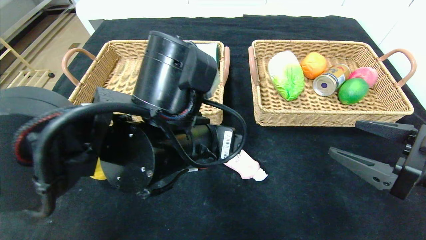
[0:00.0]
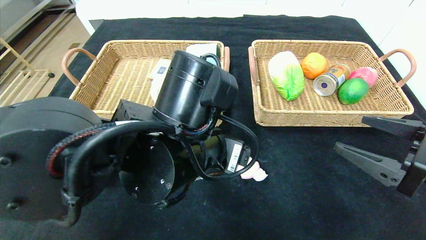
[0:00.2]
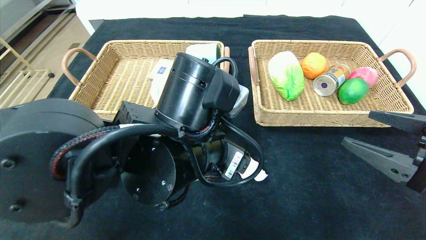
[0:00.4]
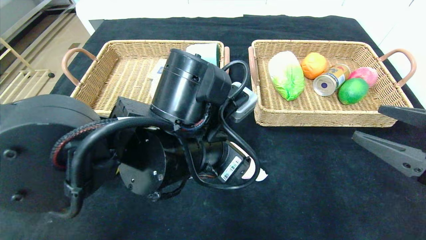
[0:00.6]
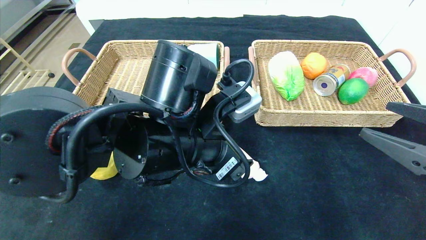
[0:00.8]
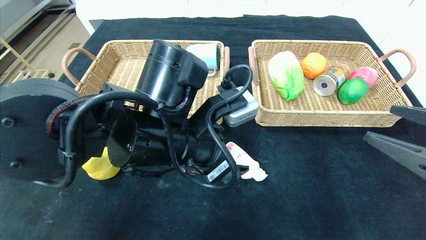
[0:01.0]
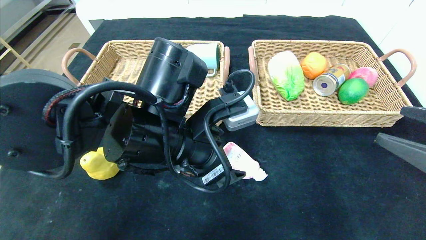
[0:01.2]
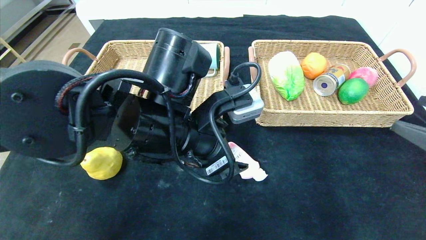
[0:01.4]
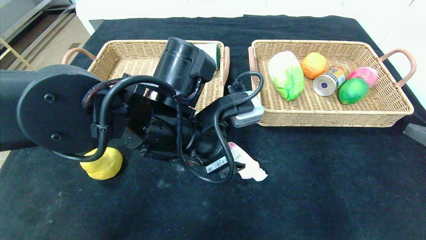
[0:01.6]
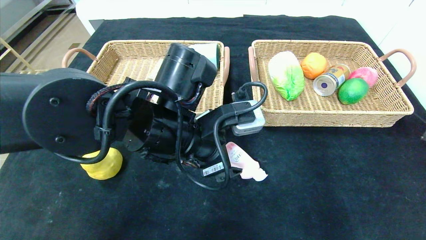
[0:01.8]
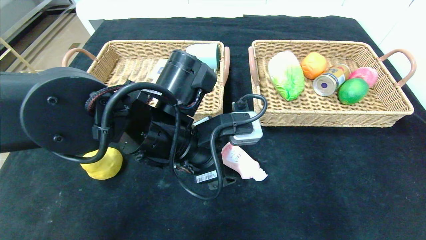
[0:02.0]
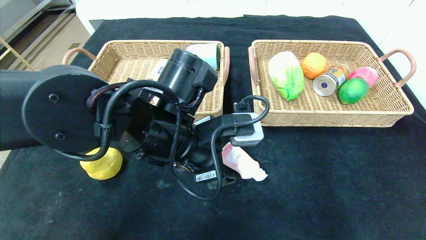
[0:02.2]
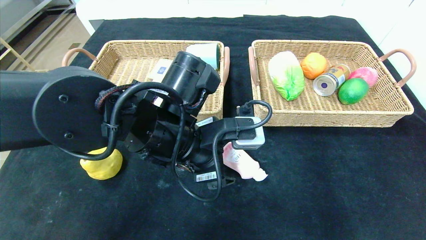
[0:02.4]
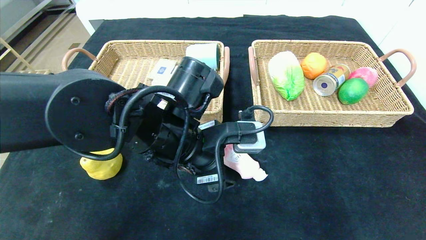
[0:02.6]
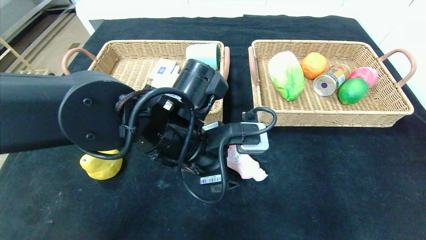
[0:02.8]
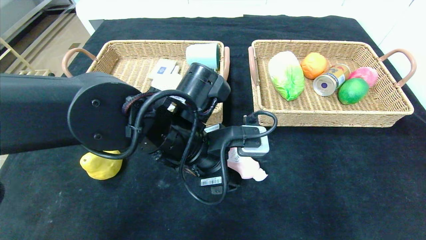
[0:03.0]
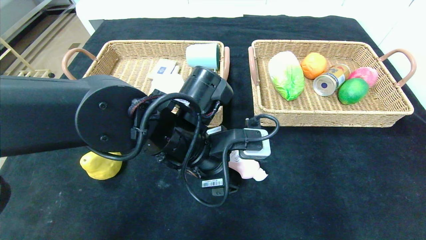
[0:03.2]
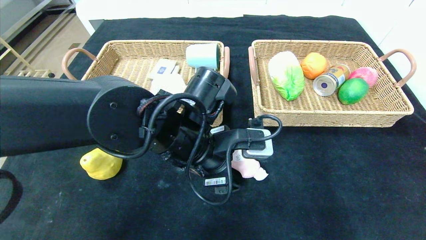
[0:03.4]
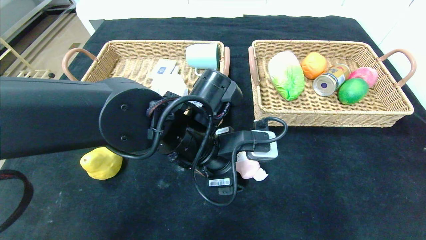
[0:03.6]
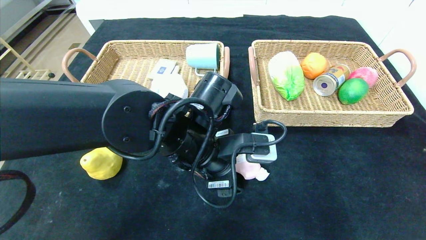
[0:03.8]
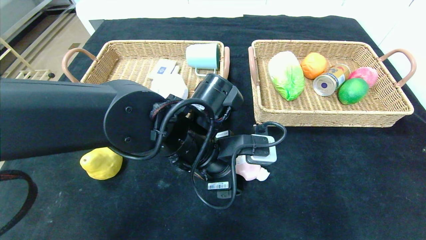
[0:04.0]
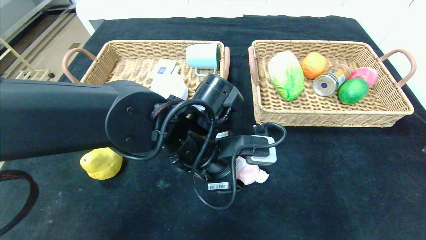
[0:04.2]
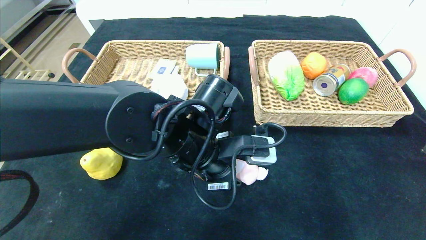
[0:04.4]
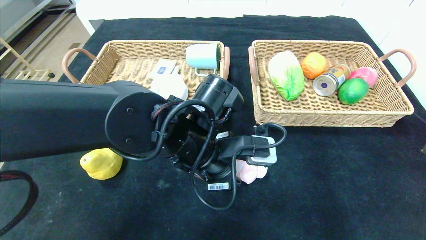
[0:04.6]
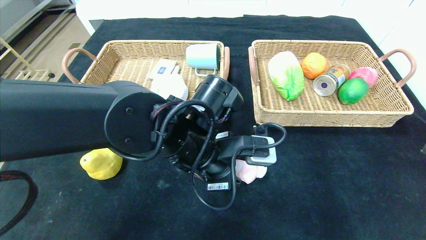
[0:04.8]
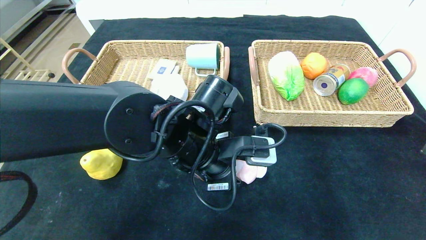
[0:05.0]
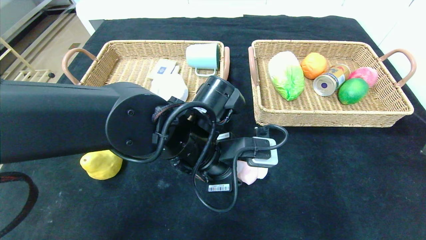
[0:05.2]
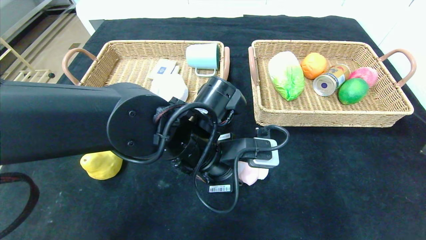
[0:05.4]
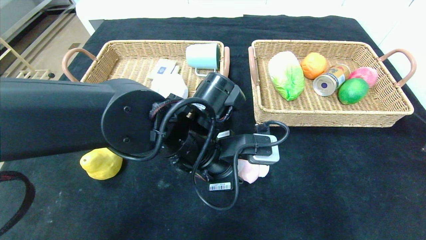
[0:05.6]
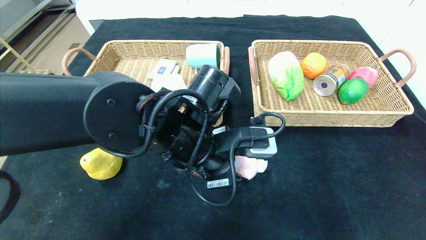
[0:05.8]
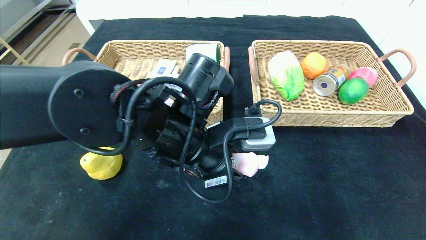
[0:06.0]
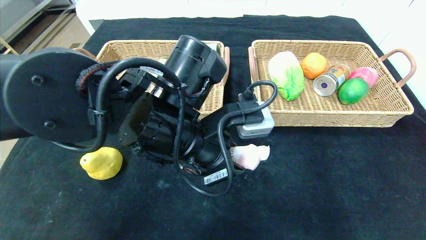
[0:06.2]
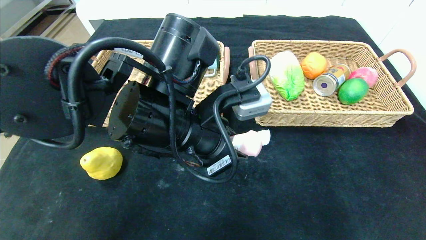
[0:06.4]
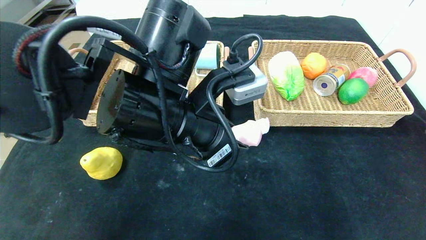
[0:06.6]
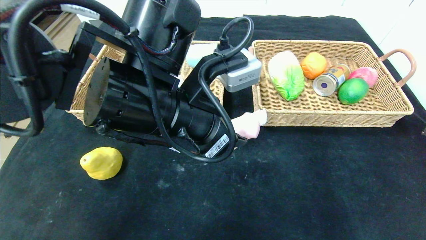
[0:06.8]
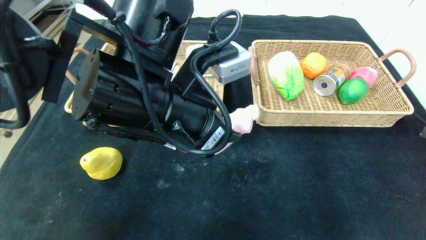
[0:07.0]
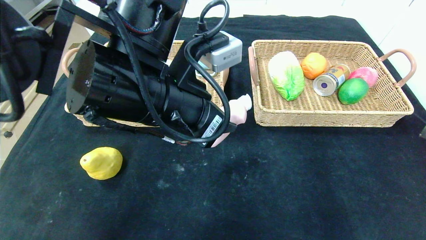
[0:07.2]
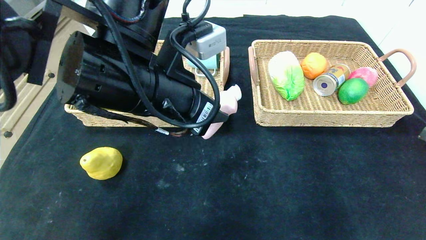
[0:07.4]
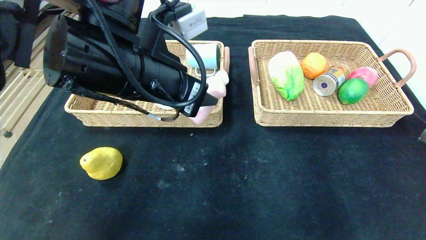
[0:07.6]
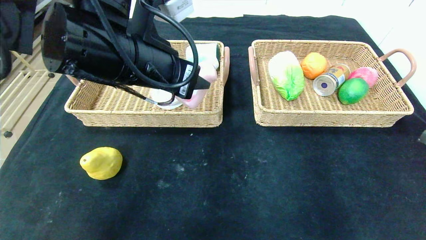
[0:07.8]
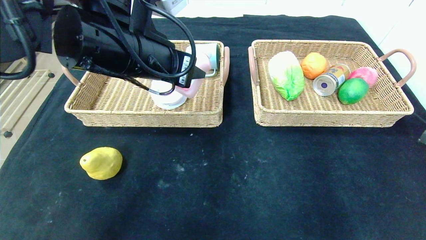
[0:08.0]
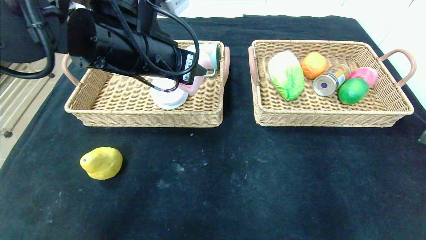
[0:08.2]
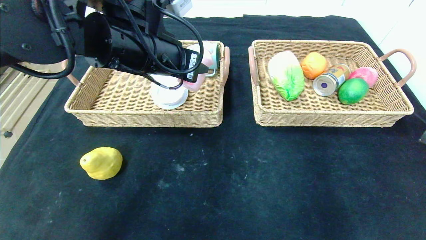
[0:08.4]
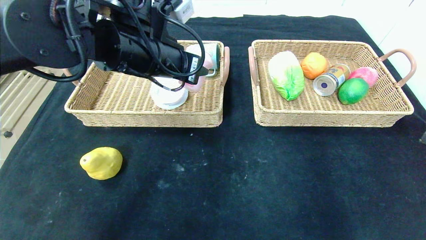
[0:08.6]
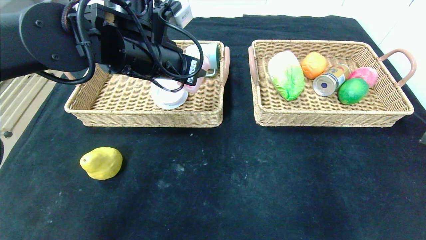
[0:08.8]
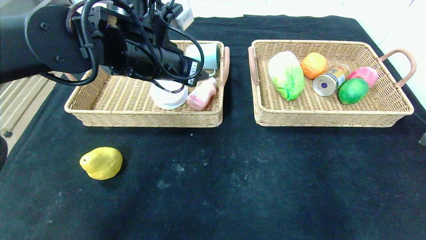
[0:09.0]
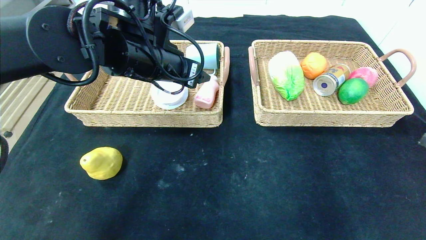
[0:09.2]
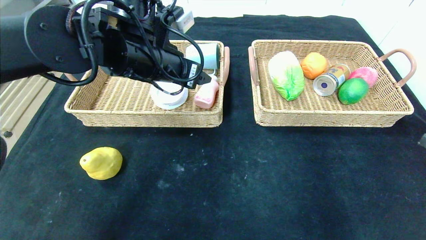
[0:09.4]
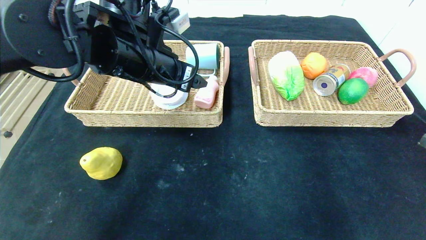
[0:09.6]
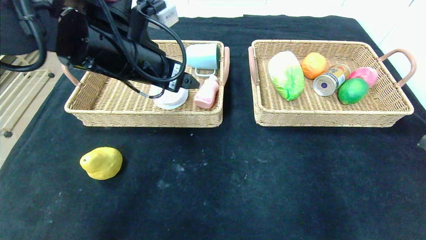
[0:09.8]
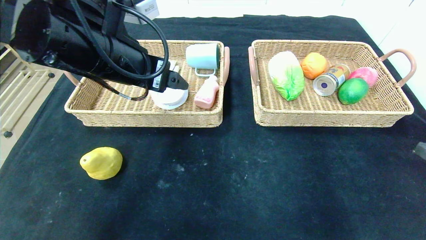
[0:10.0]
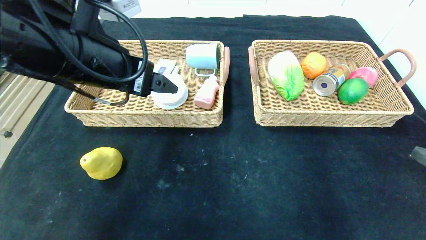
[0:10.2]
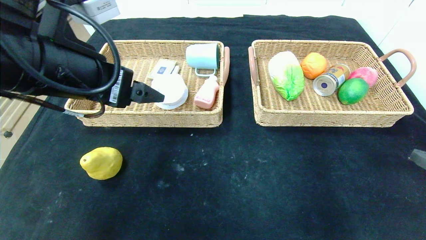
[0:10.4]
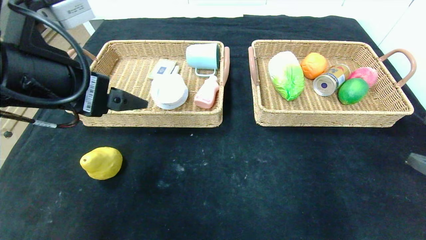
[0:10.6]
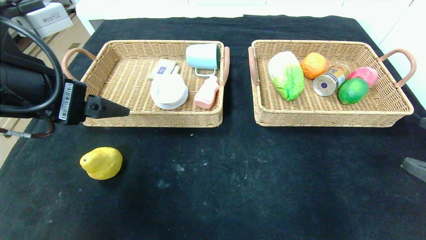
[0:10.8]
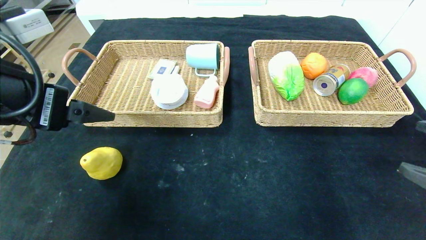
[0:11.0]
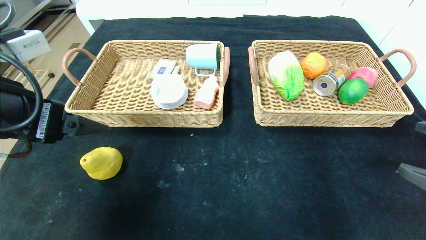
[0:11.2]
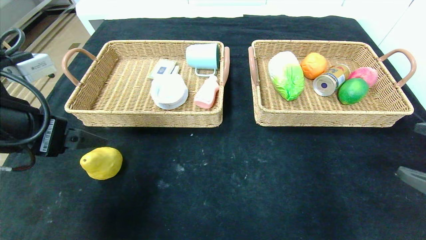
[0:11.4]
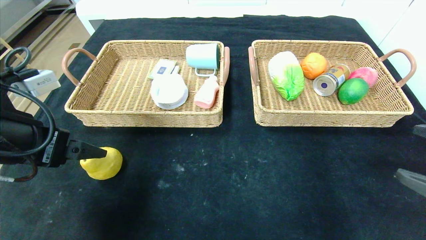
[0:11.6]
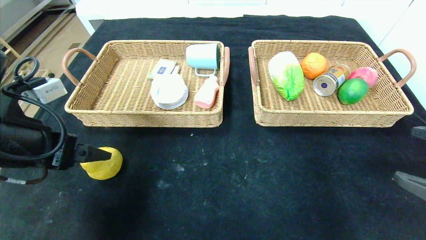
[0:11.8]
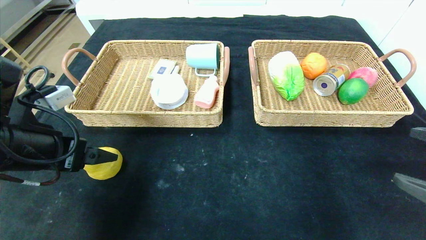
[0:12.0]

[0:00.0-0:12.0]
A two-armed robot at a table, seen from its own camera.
Step, 0:00.0 to 0:09.2: Grasp the detergent and put it in the left basket.
0:00.0 to 0:01.6: The right gripper moves some 10 cm.
0:01.6 to 0:03.0: The grippers make only small movements.
0:03.0 to 0:04.4: The left gripper closes its fingers.
0:04.4 to 0:06.0: The grippers move only a little.
0:06.0 to 0:07.6: The left gripper heads upward and to the left, covering some 10 cm.
0:07.6 to 0:09.0: The left gripper travels forward by roughly 10 cm.
0:09.0 to 0:10.4: The left gripper shifts roughly 15 cm backward and to the left.
0:10.4 to 0:12.0: The left gripper travels downward and to the left by approximately 15 cm.

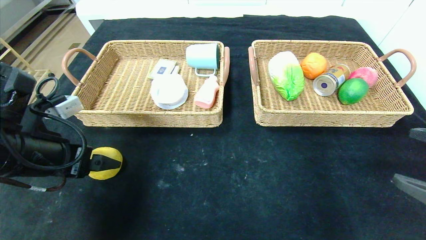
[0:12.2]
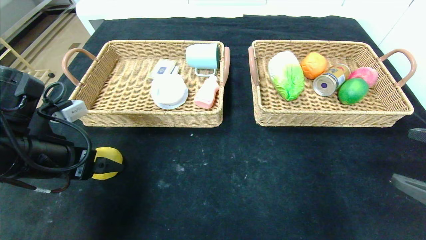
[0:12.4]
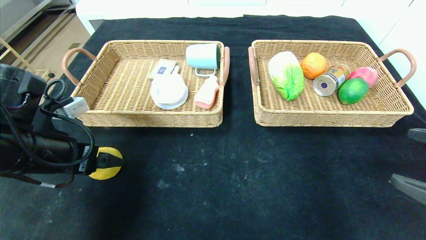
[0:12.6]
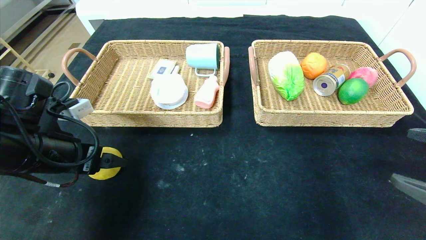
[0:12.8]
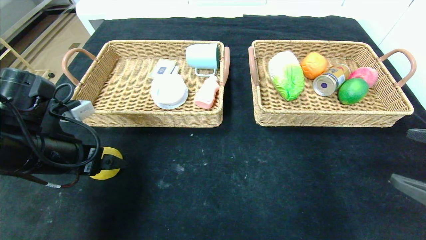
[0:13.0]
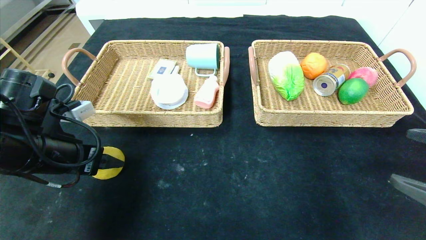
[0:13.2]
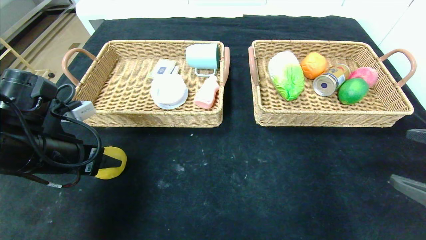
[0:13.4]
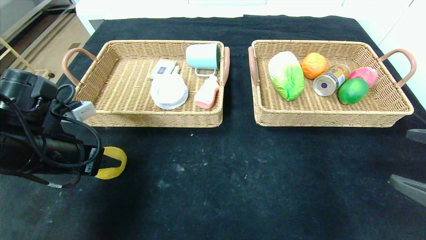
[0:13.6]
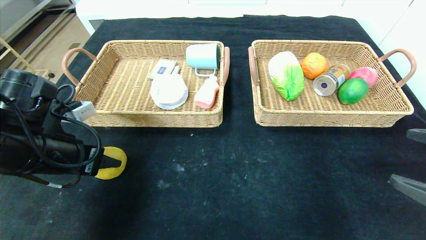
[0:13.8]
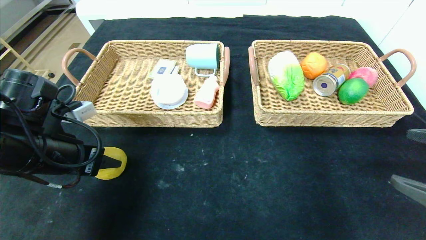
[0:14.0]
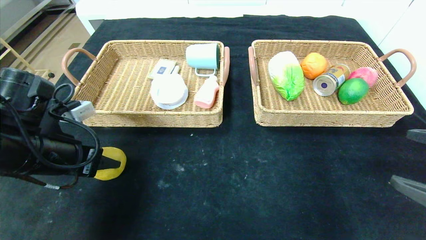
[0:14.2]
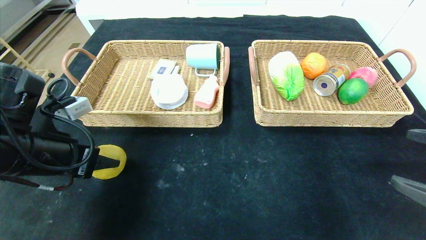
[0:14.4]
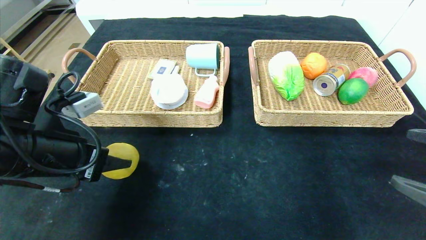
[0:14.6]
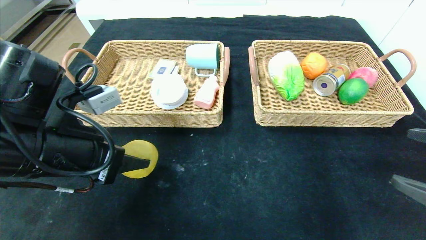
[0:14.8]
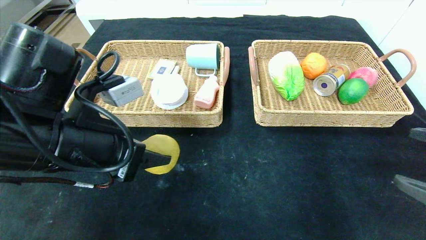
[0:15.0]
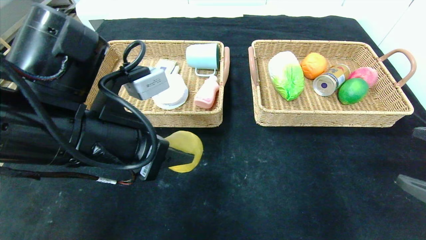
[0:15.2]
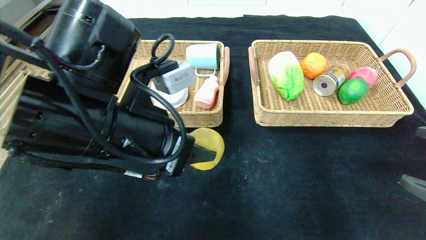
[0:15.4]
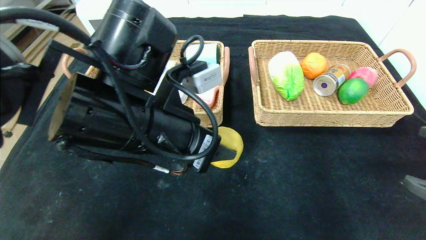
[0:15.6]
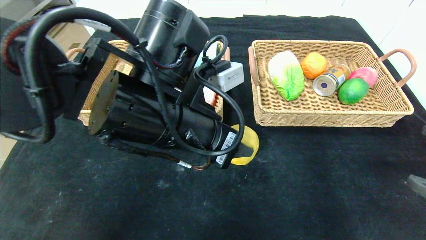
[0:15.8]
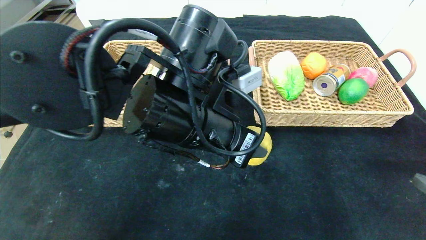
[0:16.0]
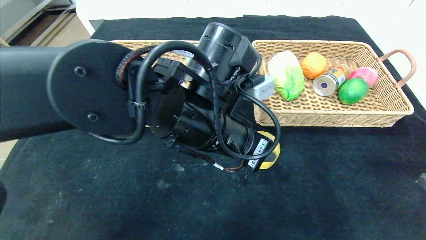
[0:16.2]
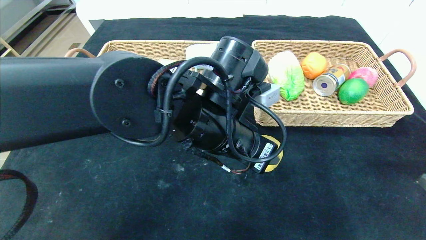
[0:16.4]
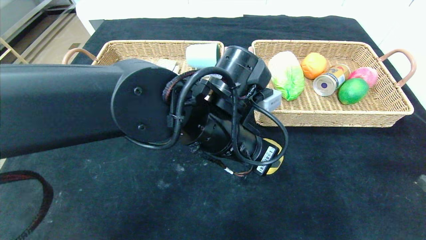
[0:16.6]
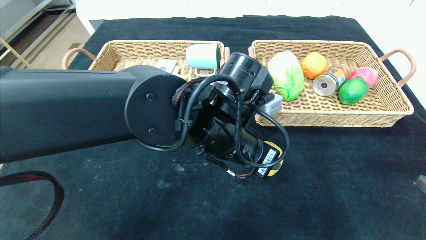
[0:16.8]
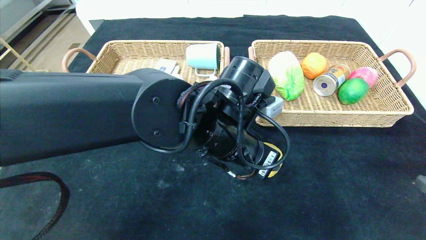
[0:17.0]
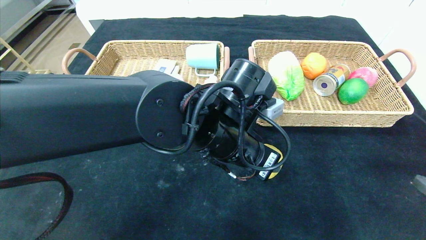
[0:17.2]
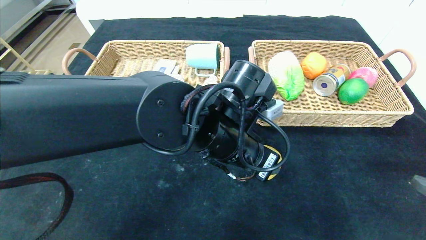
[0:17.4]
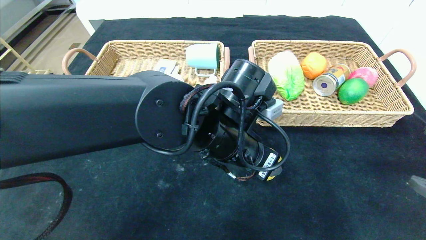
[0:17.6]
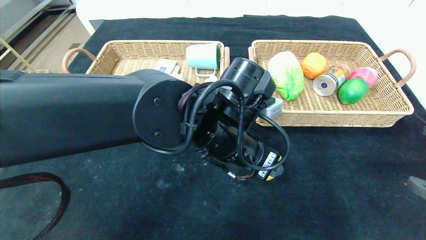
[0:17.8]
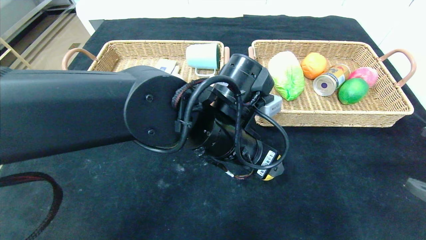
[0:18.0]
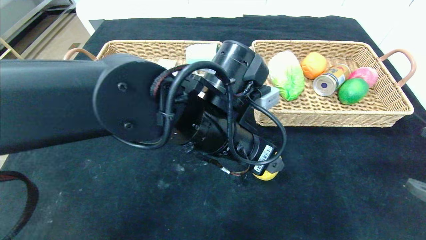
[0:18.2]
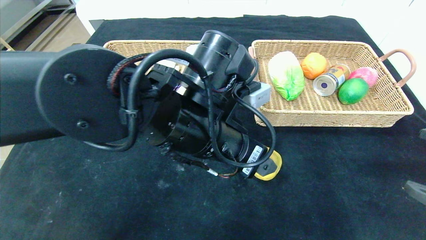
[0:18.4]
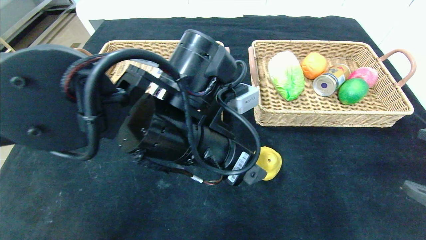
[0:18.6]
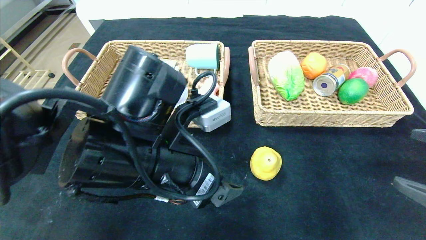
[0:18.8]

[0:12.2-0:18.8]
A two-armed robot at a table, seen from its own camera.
Step, 0:12.2 to 0:18.4: Place the pear in the center of the table.
0:12.2 to 0:13.8: The left gripper closes its fingers.
0:13.8 to 0:15.4: The left gripper travels to the right by roughly 15 cm.
0:15.4 to 0:17.2: The left gripper travels to the right, forward and downward by some 15 cm.
0:17.2 to 0:18.8: The left gripper shifts approximately 10 cm to the left and backward, and opens up.
